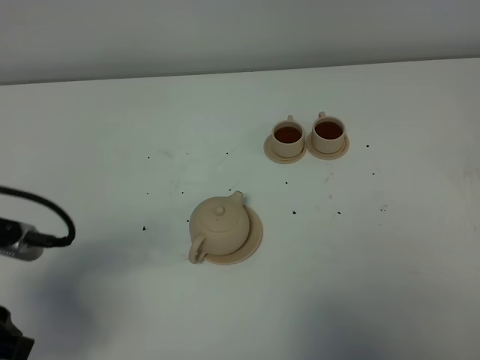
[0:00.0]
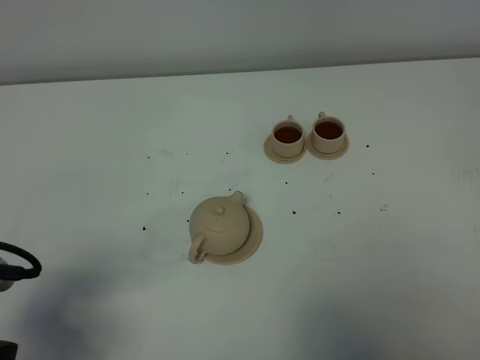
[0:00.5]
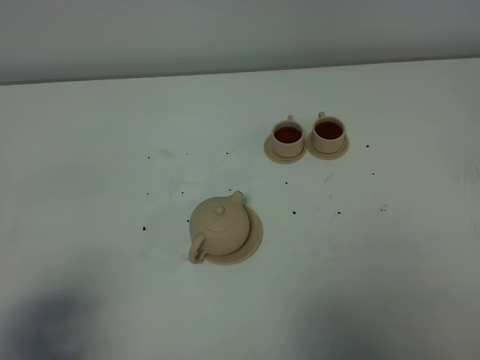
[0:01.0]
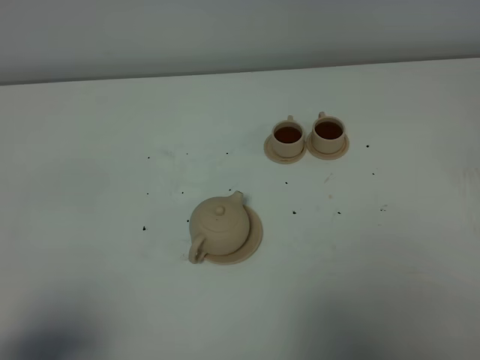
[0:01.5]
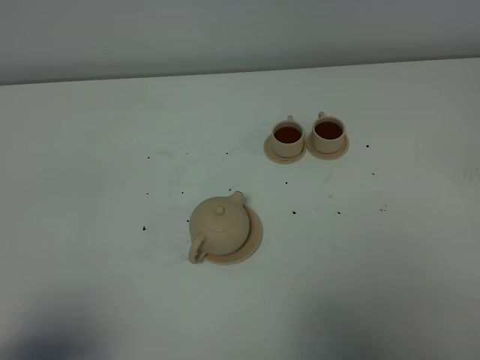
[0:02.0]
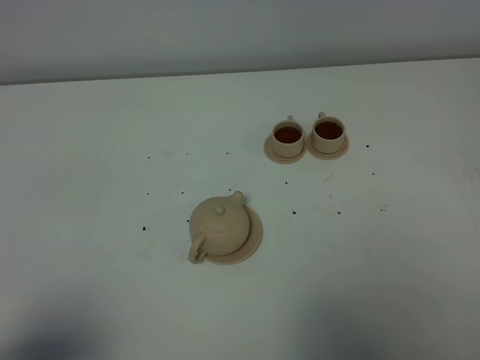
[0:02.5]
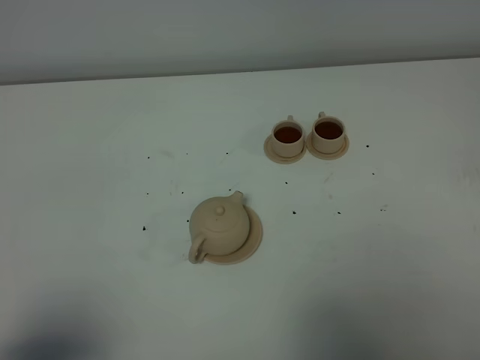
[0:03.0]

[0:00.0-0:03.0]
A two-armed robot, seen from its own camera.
Task of the whole recording: grasp the brown teapot and pour the tea into the two brown teacups one by one, put the brown teapot back in its original place.
0:00.0 to 0:01.5: The left gripper moves backward, roughly 15 cm.

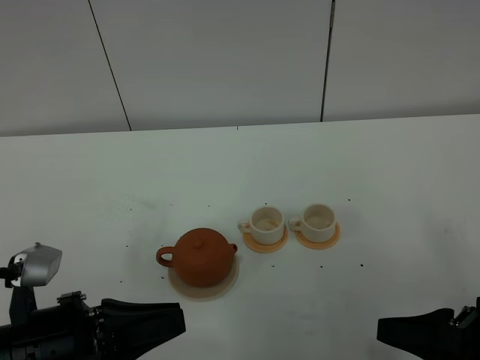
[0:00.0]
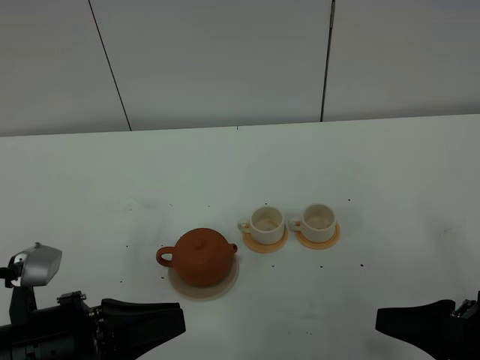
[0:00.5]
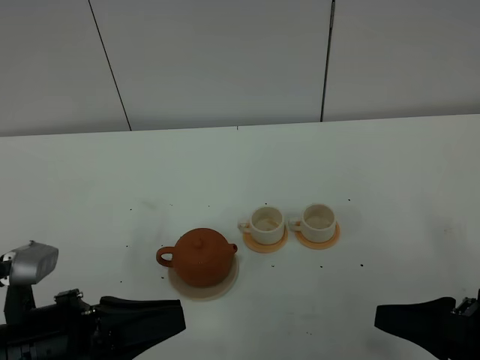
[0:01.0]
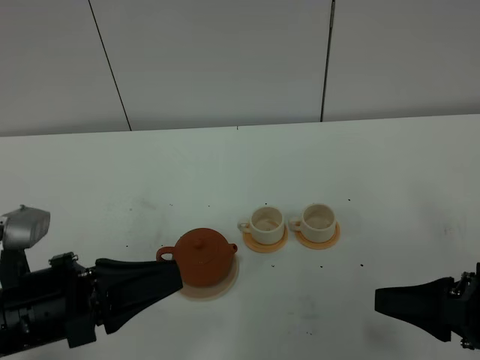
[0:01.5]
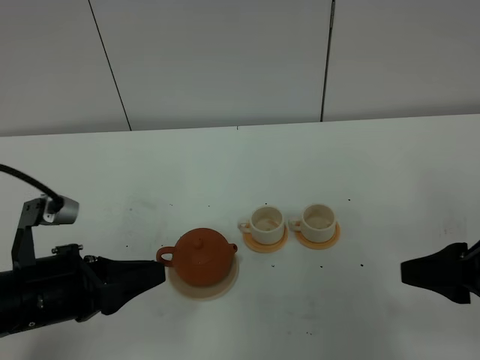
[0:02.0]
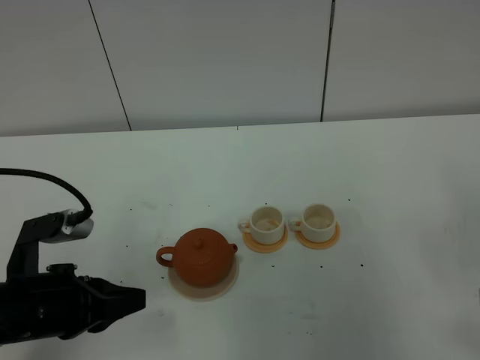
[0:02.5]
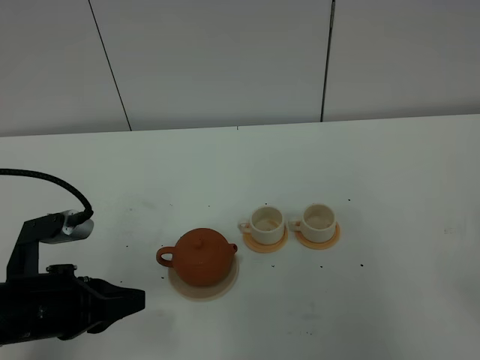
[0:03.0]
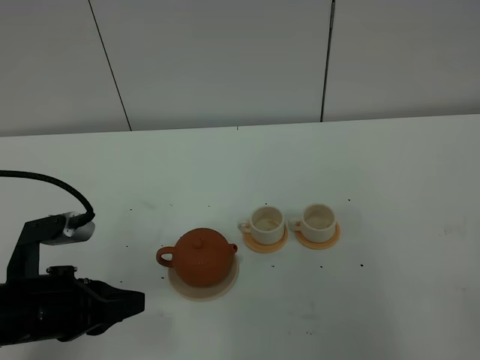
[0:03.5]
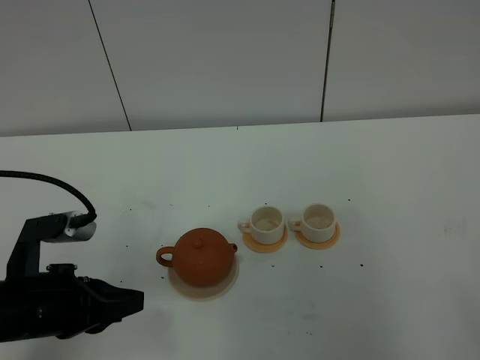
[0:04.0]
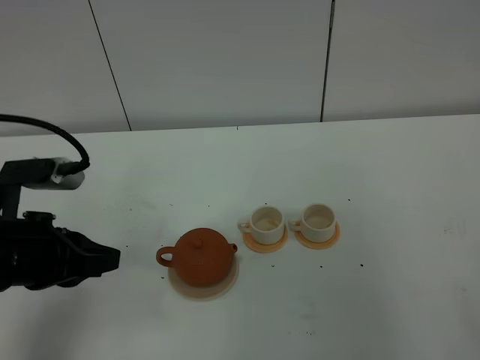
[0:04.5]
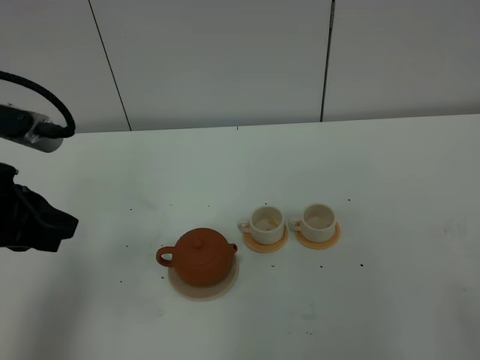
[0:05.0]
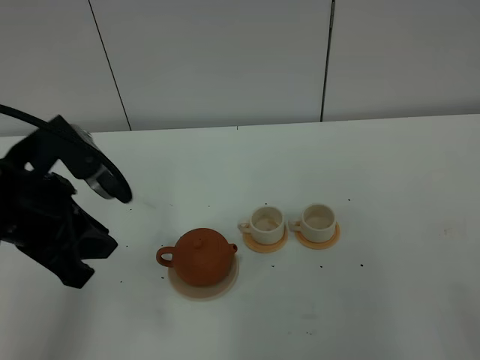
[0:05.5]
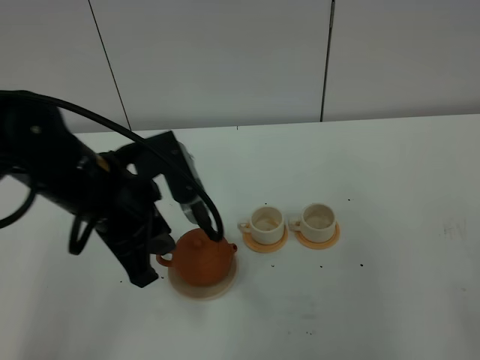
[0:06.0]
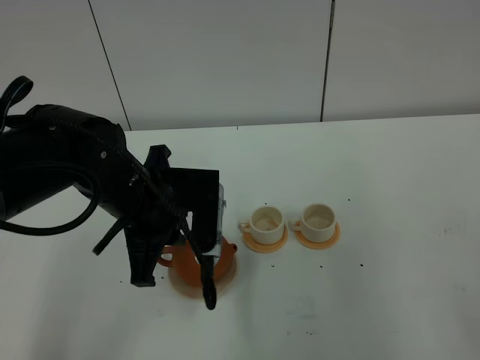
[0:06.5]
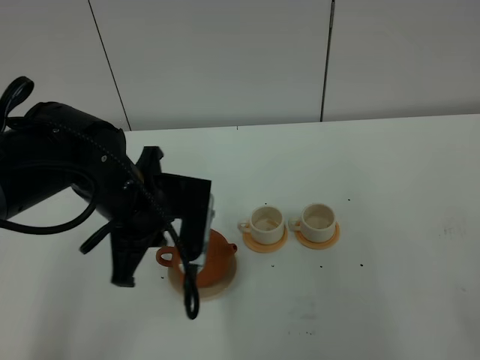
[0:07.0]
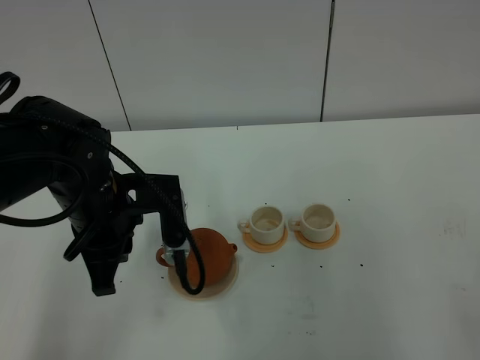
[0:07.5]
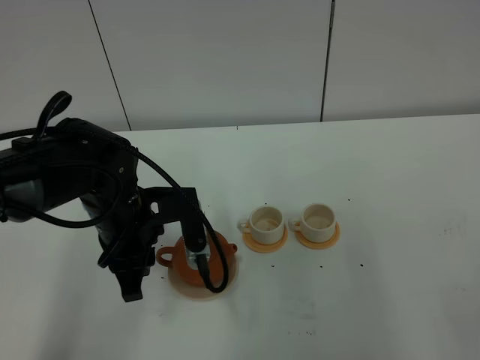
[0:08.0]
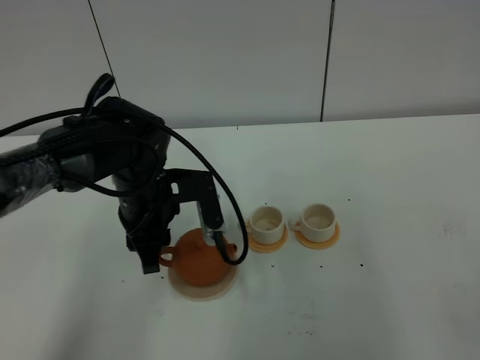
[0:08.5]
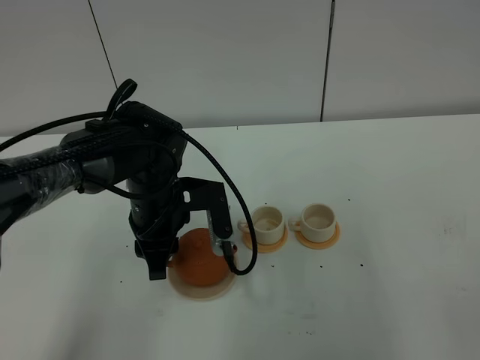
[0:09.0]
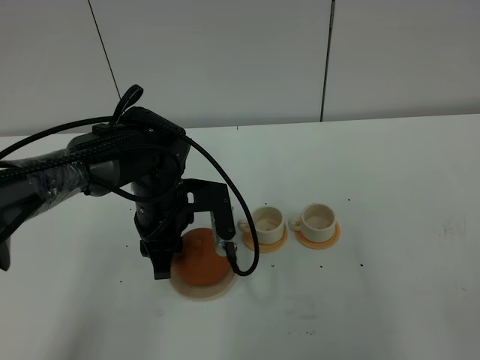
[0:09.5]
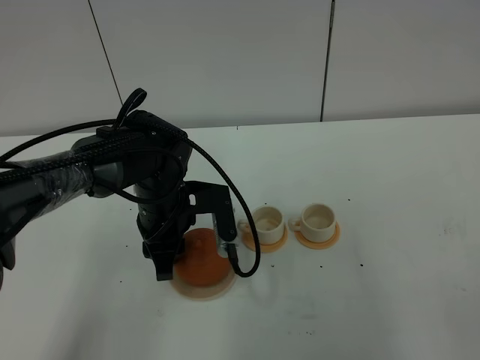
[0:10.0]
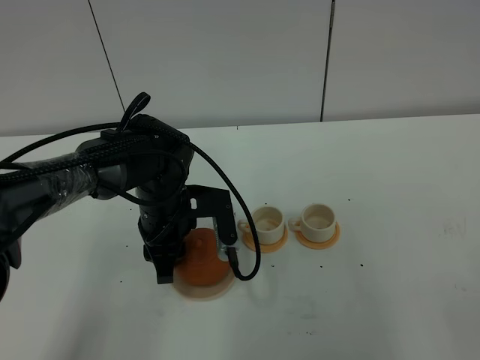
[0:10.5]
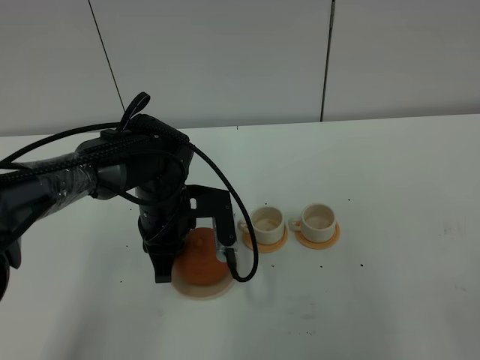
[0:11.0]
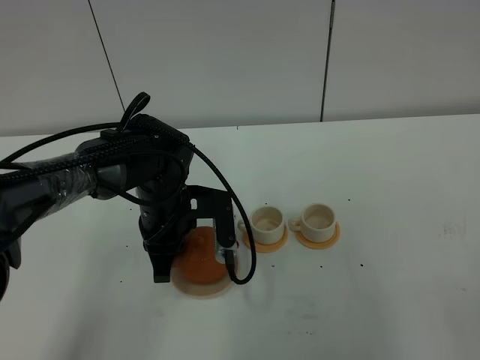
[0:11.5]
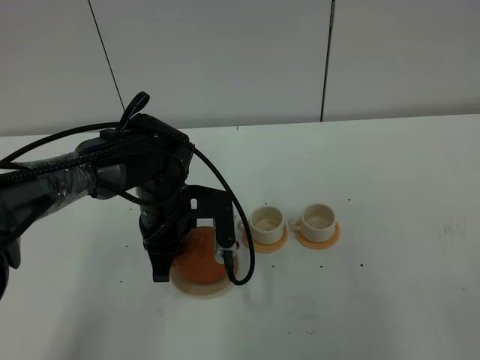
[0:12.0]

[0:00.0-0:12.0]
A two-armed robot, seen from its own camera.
Task of the whole recording: grasp the brown teapot and pour the tea into the two white teacups one by one, put the brown teapot back in its original place.
0:00.0 to 0:02.0: The left gripper moves forward, about 5 cm, while the right gripper shifts roughly 5 cm upward.
0:02.0 to 0:04.0: The right gripper goes roughly 20 cm backward, and closes up.
0:04.0 to 0:06.0: The left gripper shifts approximately 15 cm to the right, forward and upward.
0:06.0 to 0:08.0: The left gripper travels downward by some 10 cm, and opens up.
0:08.0 to 0:10.0: The left gripper ends up some 5 cm from where it was.
0:10.0 to 0:12.0: The left gripper closes up.

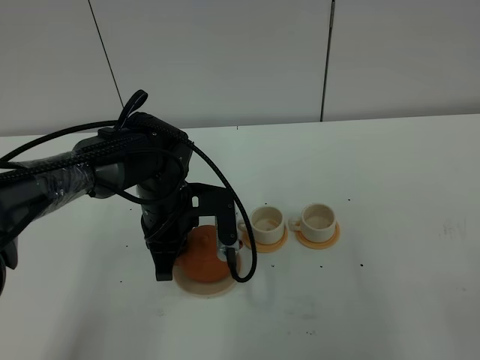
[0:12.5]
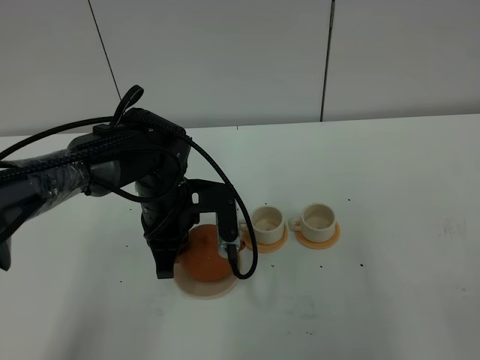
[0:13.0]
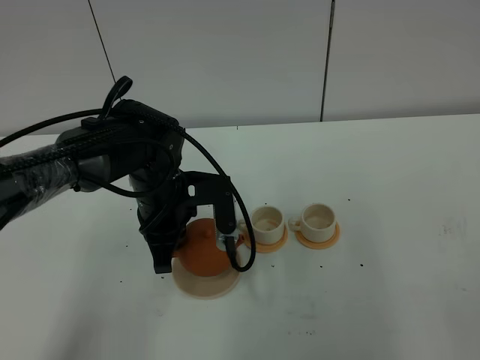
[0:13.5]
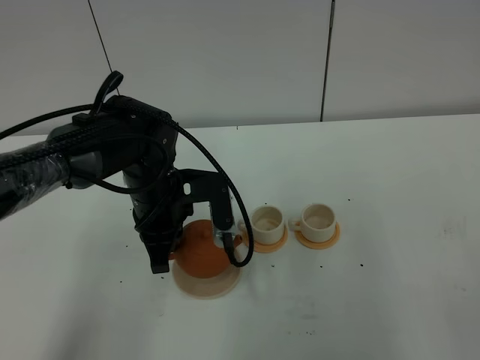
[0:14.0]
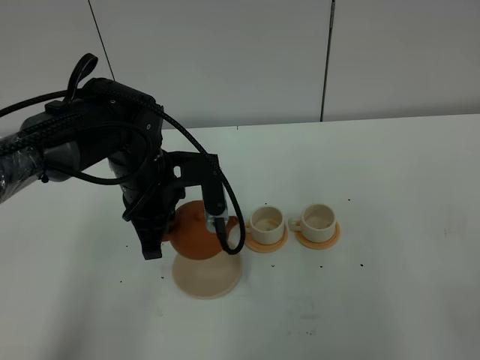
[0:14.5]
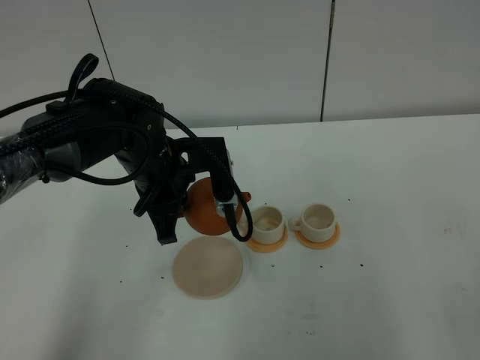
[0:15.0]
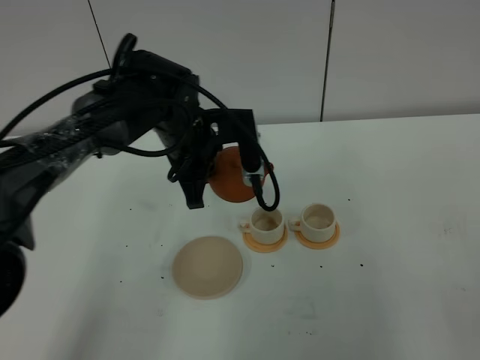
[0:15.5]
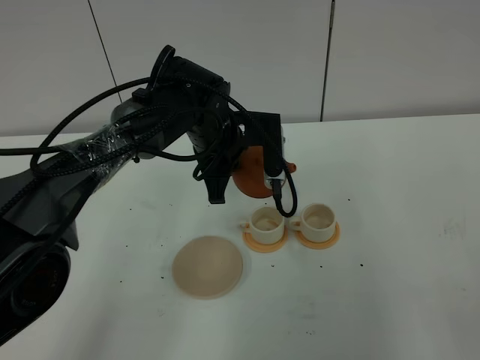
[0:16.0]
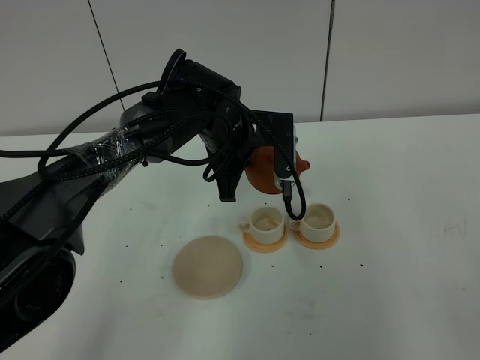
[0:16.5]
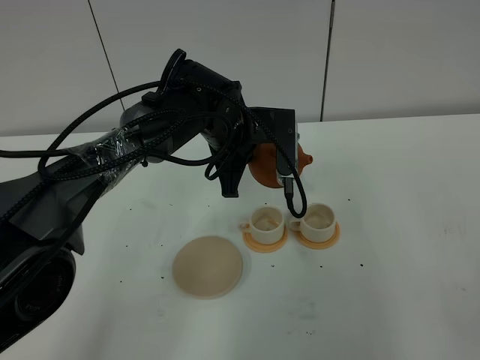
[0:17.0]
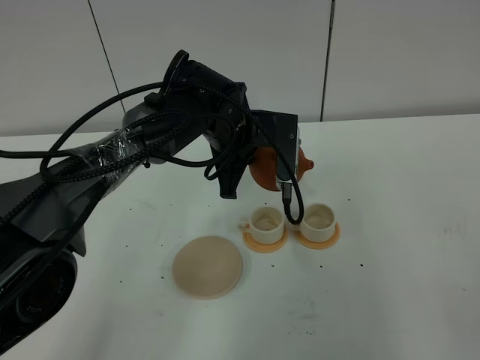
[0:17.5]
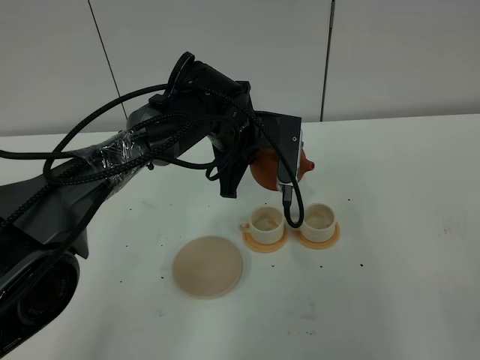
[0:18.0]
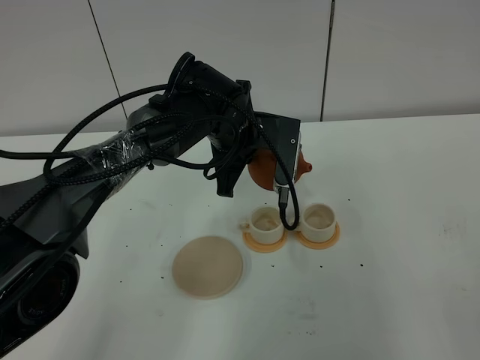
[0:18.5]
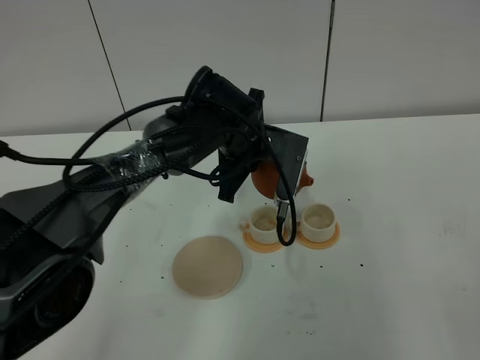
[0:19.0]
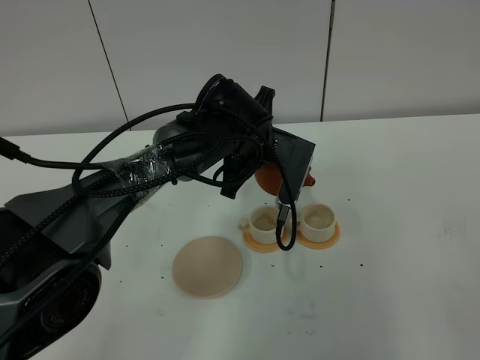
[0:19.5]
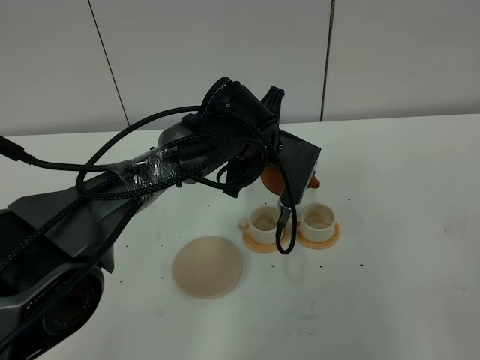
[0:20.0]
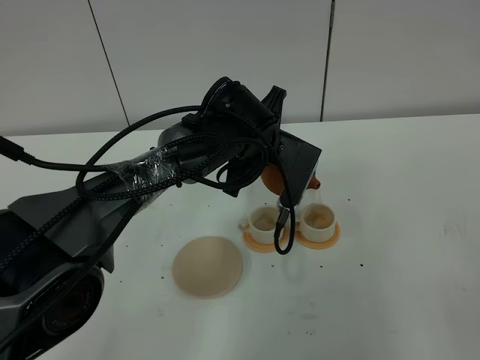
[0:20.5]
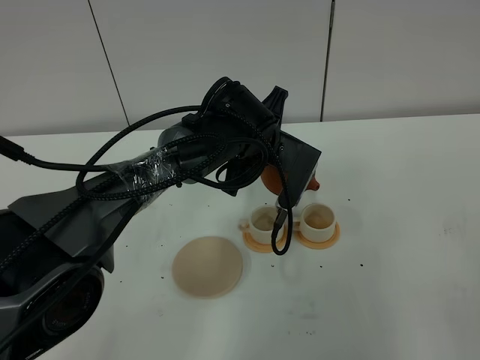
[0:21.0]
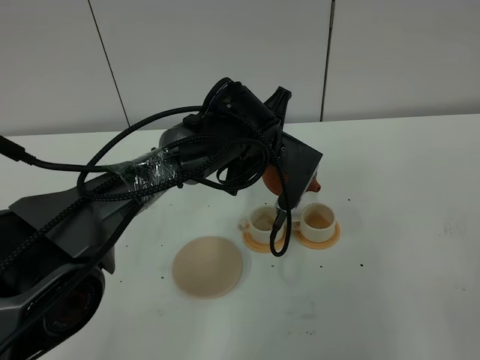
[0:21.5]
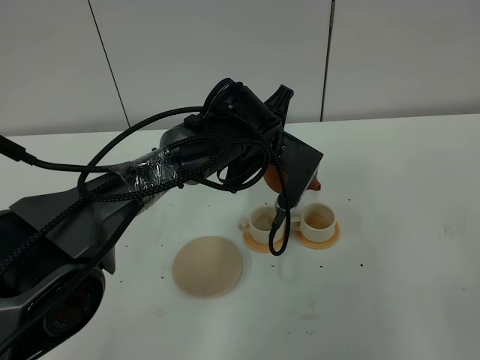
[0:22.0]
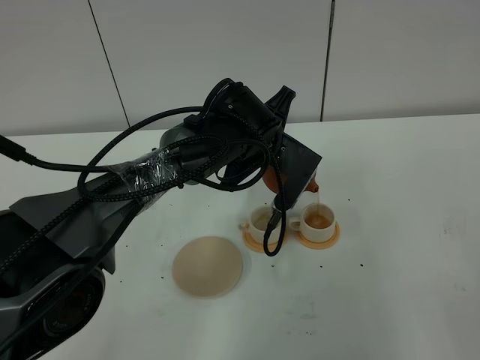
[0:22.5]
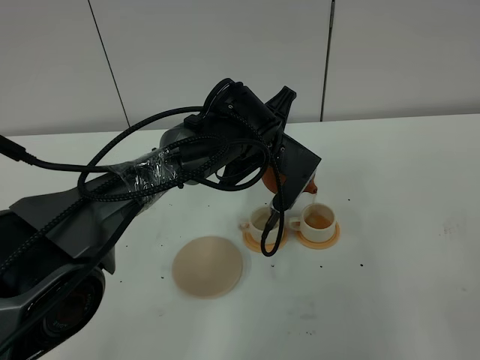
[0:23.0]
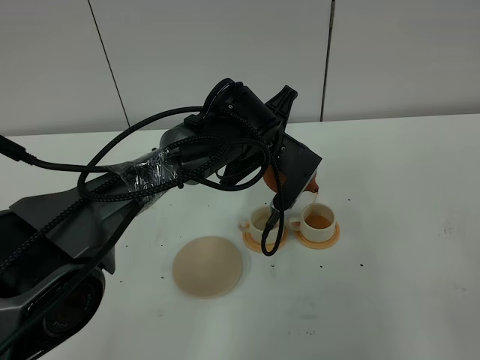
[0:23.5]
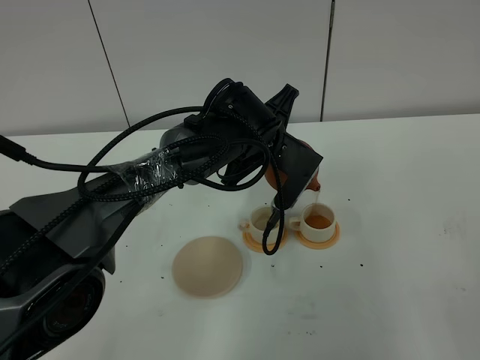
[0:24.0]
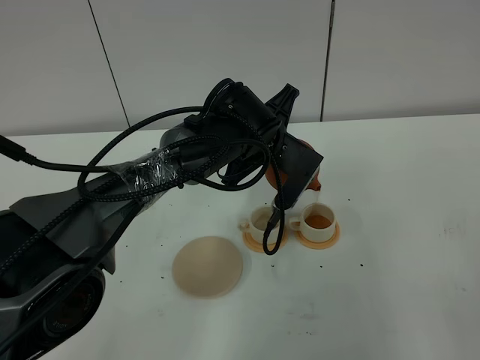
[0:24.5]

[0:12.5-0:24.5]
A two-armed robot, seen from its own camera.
Task of the whole recording: grasp the brown teapot and pour the tea into the two white teacups one by one, put the brown teapot back in its original place.
0:12.5 to 0:14.5: The left gripper goes about 5 cm upward.
0:14.5 to 0:16.5: The left gripper heads to the right and forward, covering roughly 10 cm.
0:16.5 to 0:18.5: The grippers stay close to where they were, moving slightly.
0:18.5 to 0:20.5: The grippers move only a little.
0:20.5 to 0:22.5: The grippers move only a little.
0:22.5 to 0:24.5: Both grippers stay about where they are.
